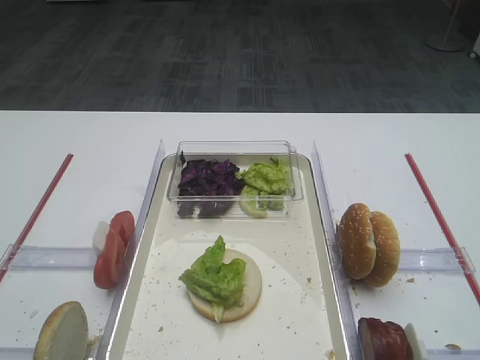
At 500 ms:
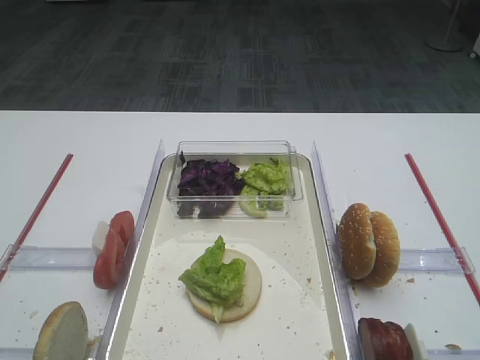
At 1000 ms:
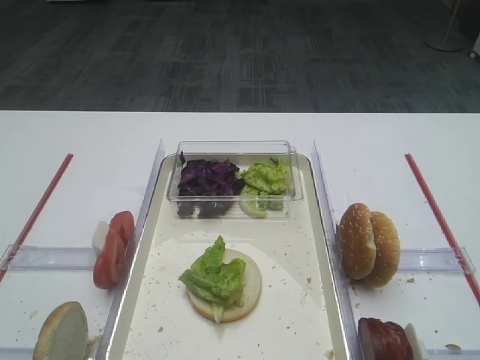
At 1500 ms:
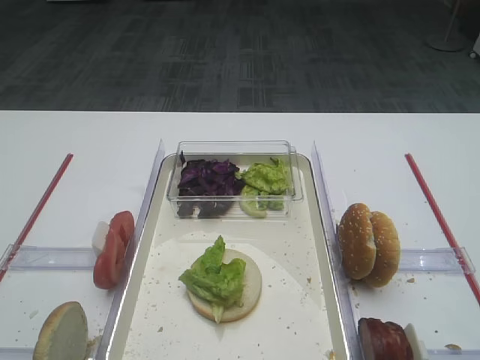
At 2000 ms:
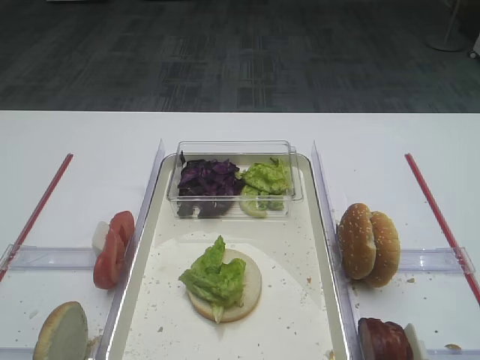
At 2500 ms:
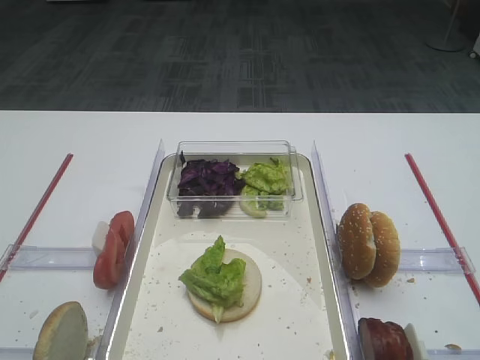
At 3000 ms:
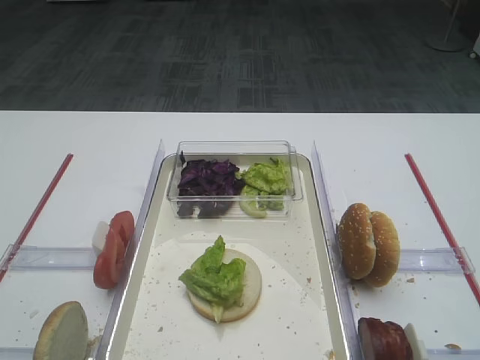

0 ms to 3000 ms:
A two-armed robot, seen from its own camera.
0 ms to 3000 ms: Both grippers stay put.

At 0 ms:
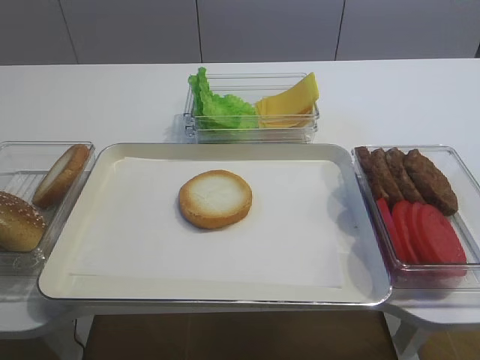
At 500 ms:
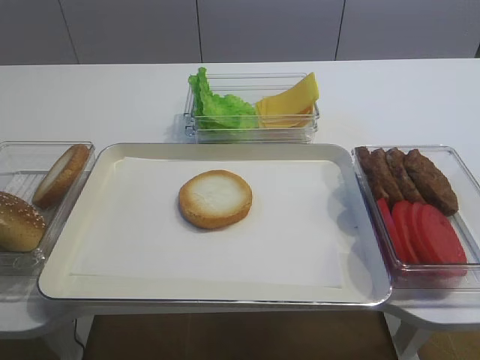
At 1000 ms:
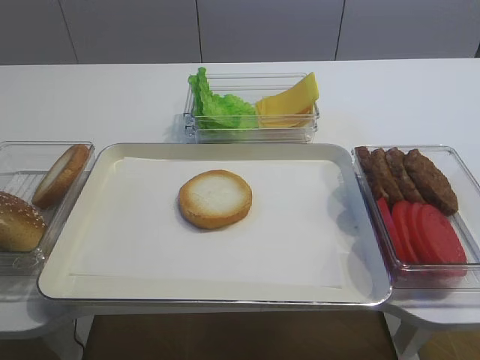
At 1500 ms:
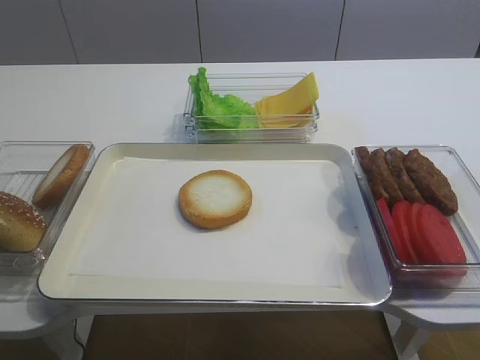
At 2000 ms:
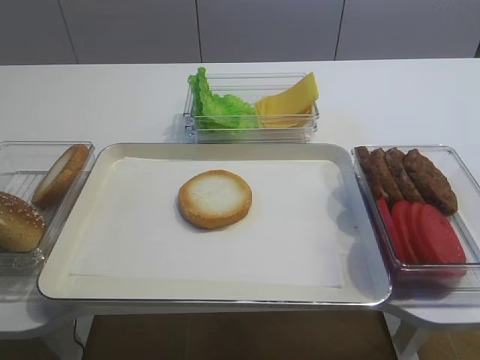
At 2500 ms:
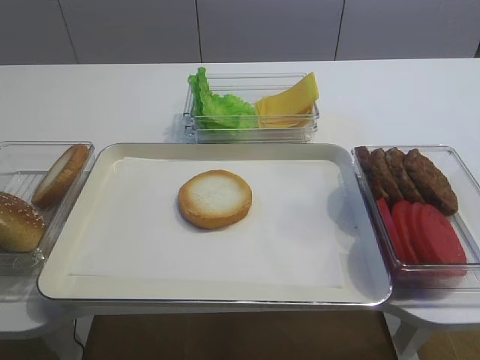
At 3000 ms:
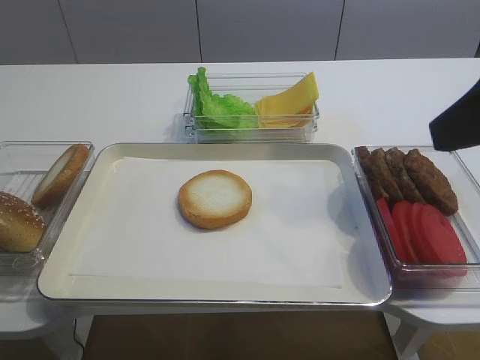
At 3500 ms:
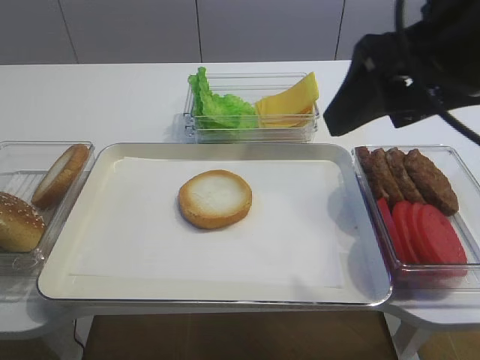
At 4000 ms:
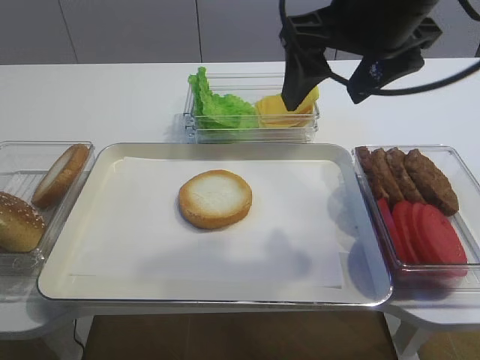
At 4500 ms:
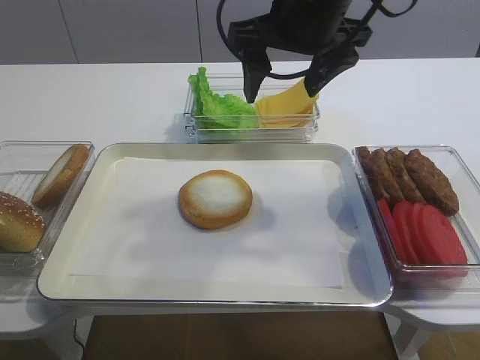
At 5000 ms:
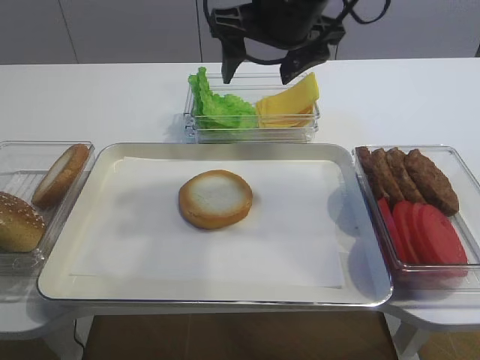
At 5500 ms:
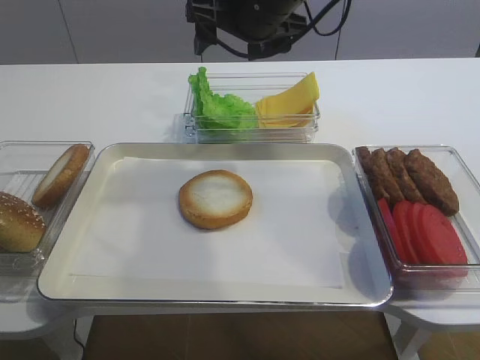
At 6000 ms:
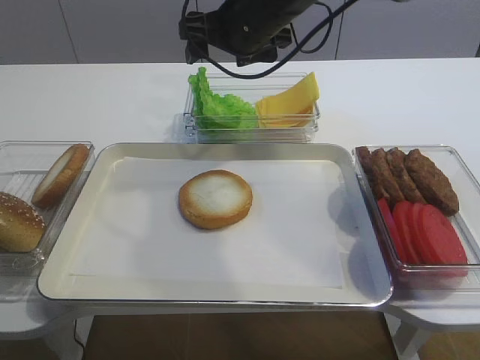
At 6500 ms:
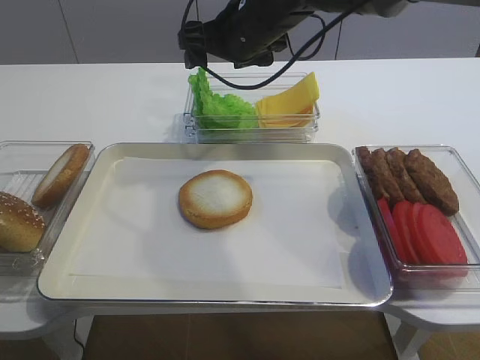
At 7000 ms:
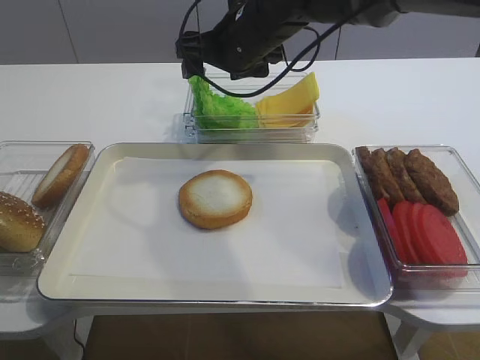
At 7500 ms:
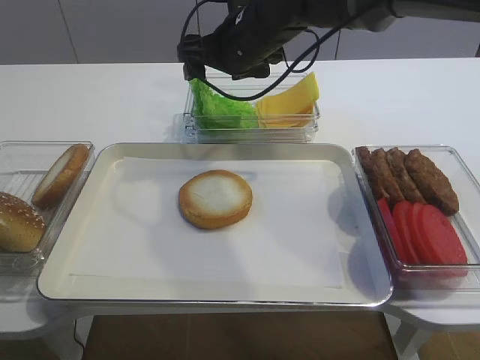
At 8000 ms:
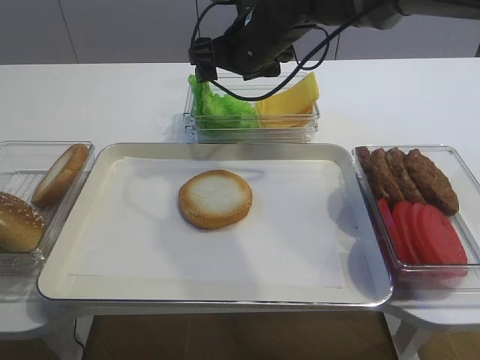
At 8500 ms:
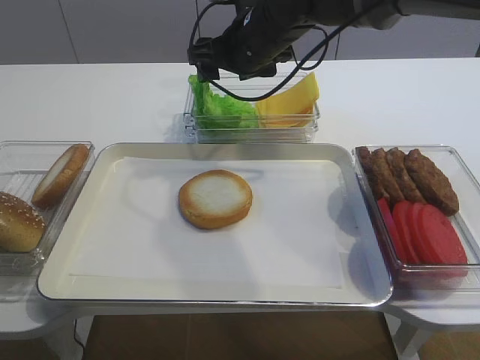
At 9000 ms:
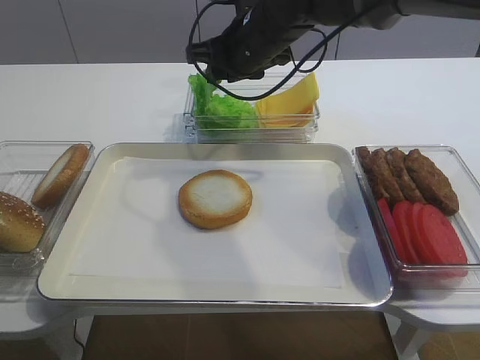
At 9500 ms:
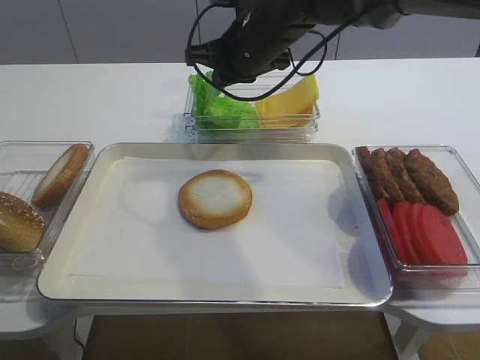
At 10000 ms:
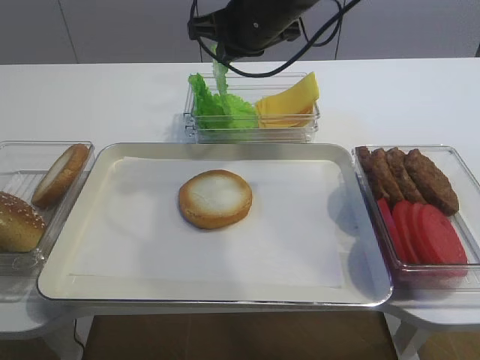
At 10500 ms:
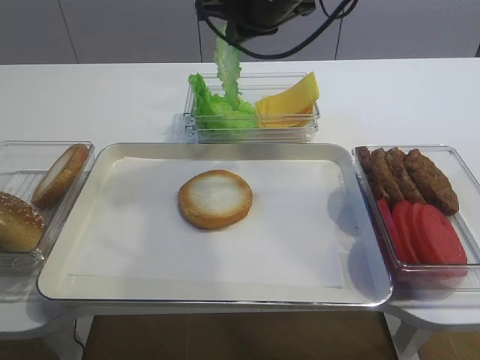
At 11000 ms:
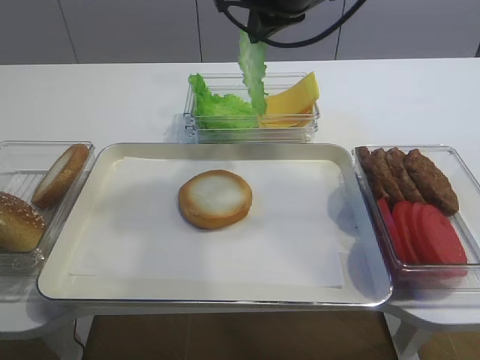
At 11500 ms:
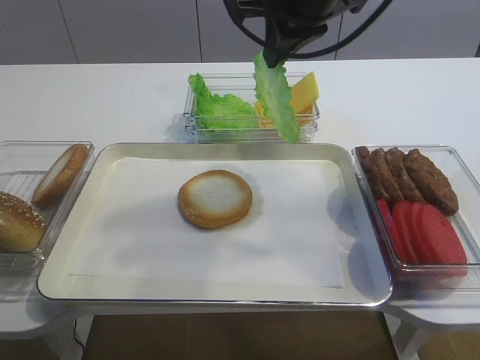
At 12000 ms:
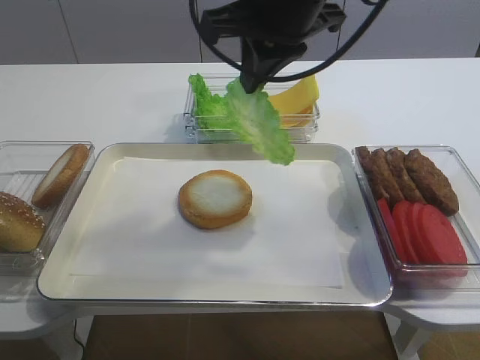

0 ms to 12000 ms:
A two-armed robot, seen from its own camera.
Step, 0 ms to 9500 ms: Pick up the lettuce leaf with the right gripper.
2000 ms to 4000 ms: The right gripper travels forward and to the left by about 30 cm.
4000 ms to 6000 ms: The right gripper is displaced forward, to the left and downward by about 15 cm.
6000 ms to 8000 ms: There are only small adjustments of the grippers.
8000 ms to 10000 ms: The right gripper closes.
10000 ms to 12000 ms: The right gripper shifts some 10 cm backward and upward.

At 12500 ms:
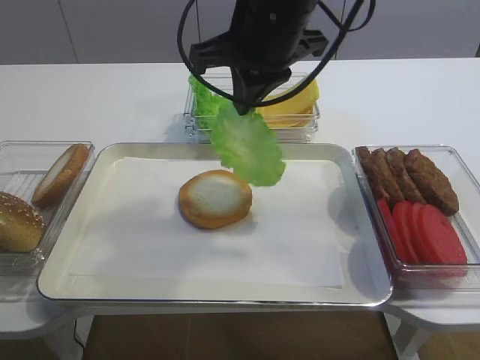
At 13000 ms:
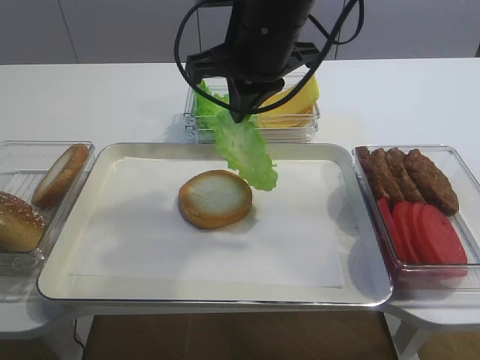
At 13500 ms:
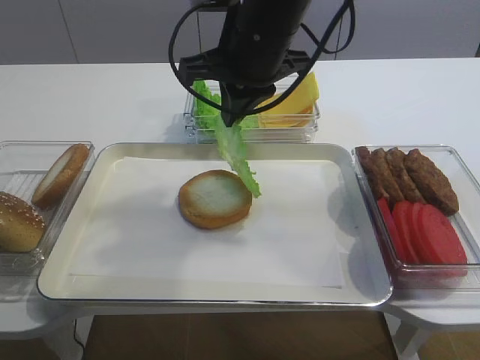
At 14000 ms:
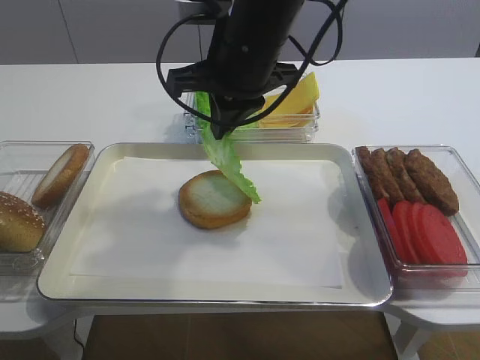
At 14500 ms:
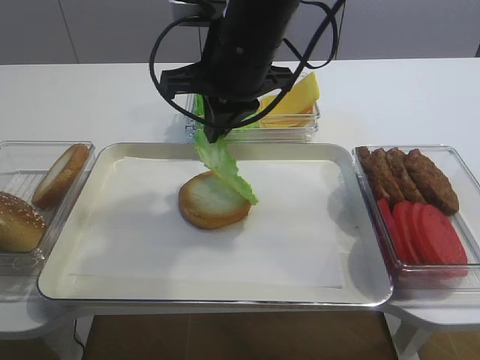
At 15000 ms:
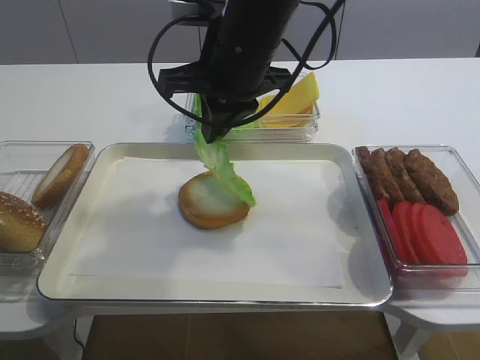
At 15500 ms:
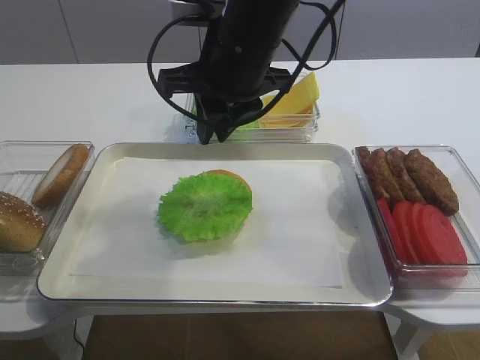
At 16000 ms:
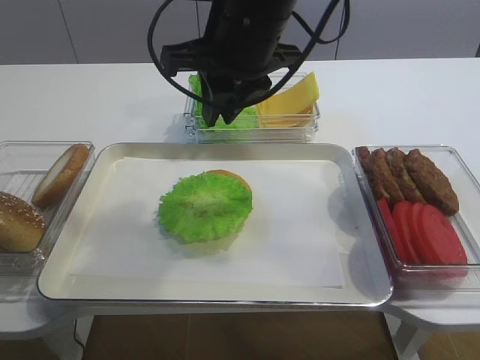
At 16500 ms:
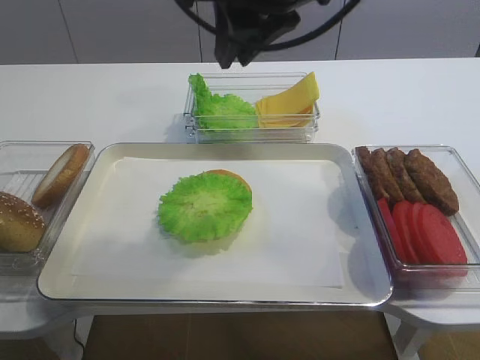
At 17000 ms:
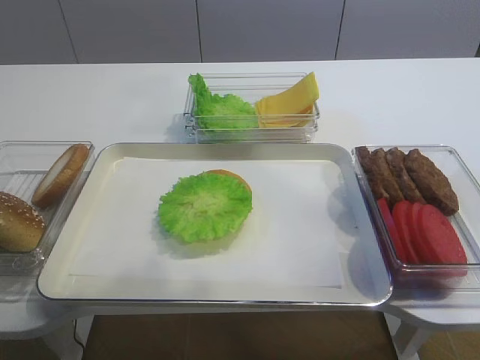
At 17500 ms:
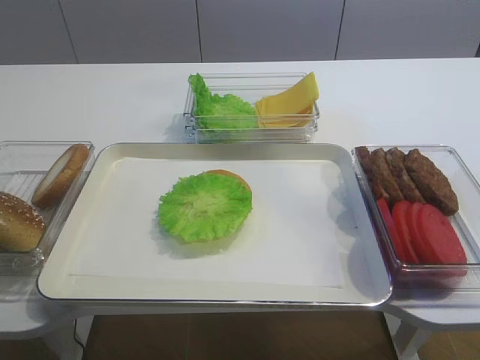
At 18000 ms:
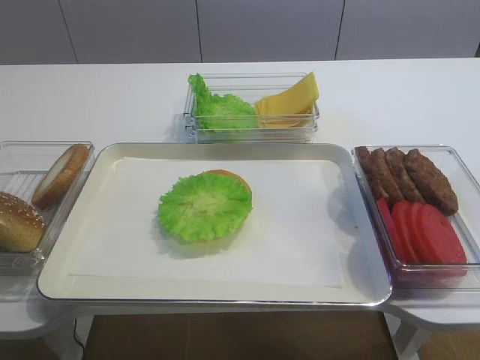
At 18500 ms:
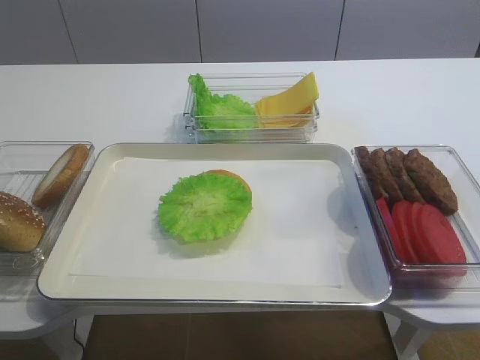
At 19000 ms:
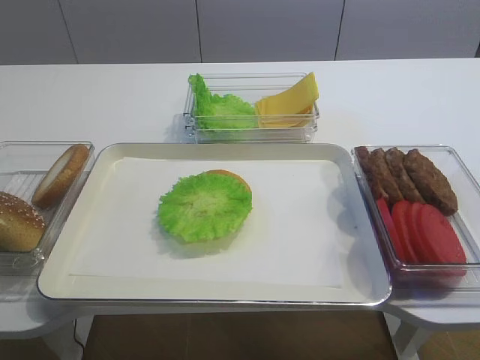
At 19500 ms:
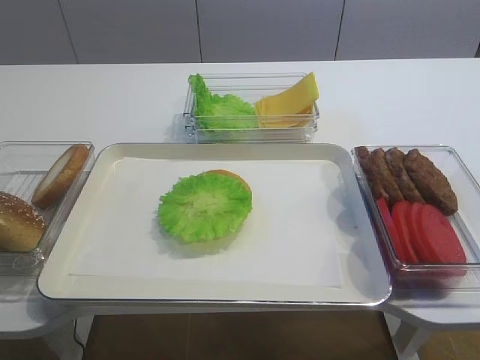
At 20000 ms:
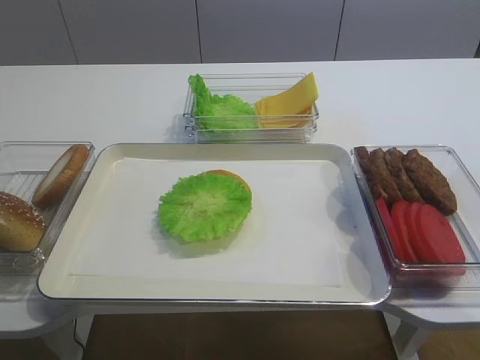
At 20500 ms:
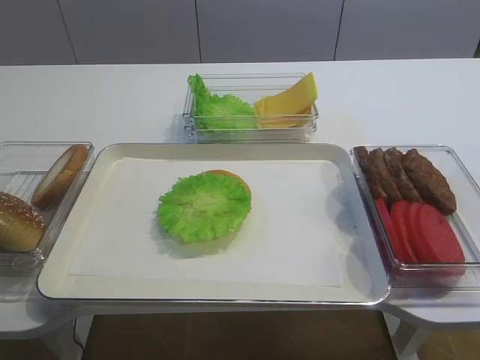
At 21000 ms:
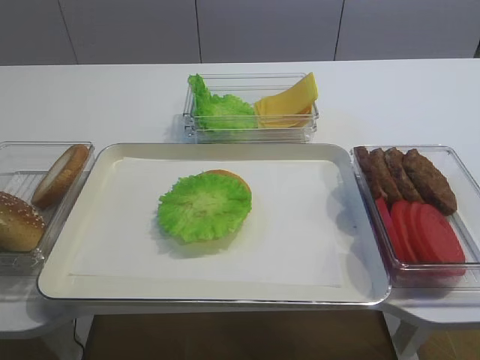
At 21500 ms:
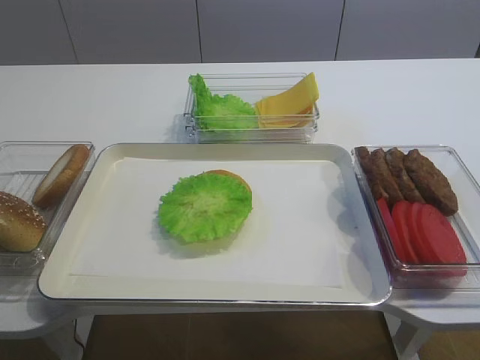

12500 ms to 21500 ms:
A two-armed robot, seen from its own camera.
Step, 12500 ms to 15000 ms: Place the lettuce leaf on the bread slice with the right gripper.
12500 ms to 14500 ms: The grippers stay close to where they were, moving slightly.
14500 ms to 17000 ms: The right gripper goes some 15 cm upward, to the right and backward.
17000 ms to 19500 ms: The right gripper is displaced backward, to the right and downward by some 35 cm.

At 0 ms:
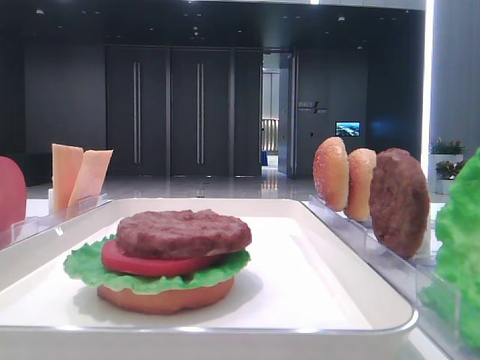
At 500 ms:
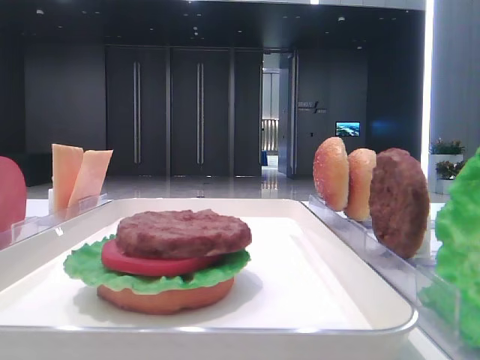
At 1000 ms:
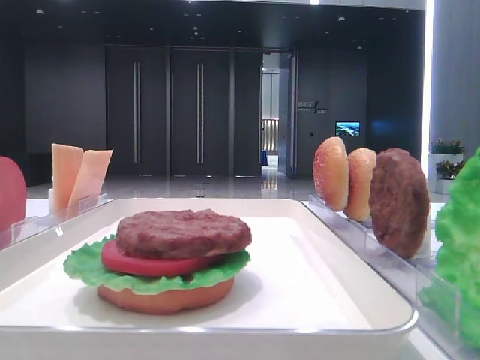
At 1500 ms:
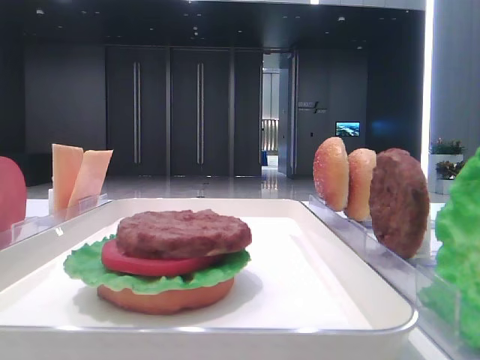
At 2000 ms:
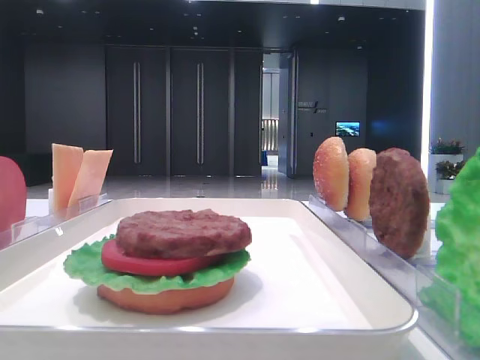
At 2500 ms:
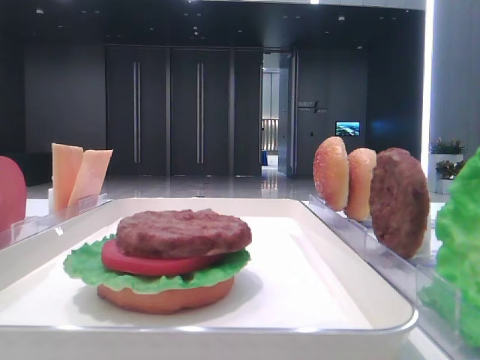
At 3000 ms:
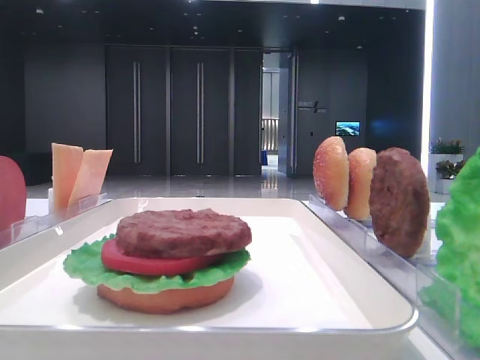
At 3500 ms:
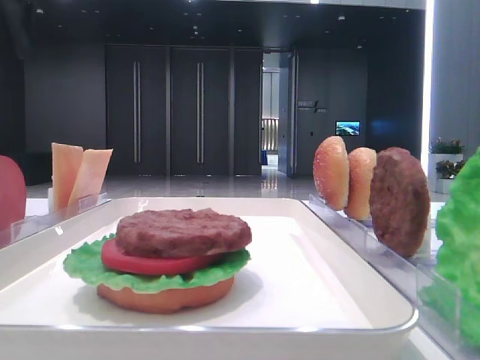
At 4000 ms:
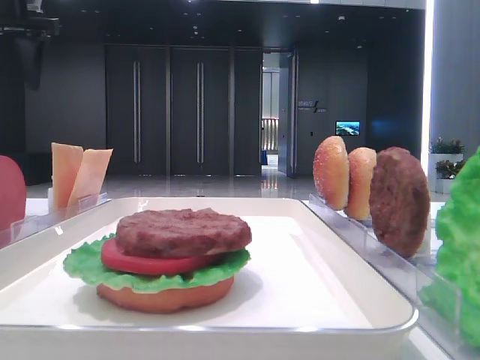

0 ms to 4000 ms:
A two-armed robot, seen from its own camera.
2000 ms to 4000 ms: The left gripper goes some 40 cm forward.
